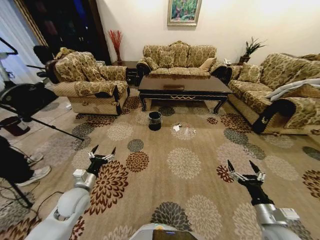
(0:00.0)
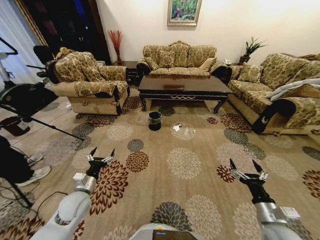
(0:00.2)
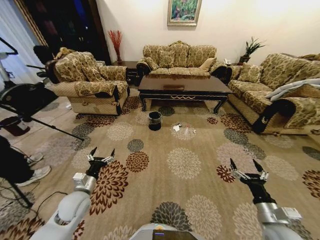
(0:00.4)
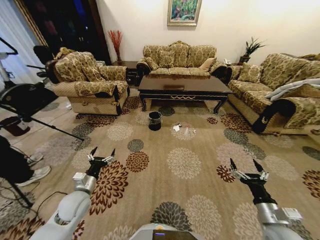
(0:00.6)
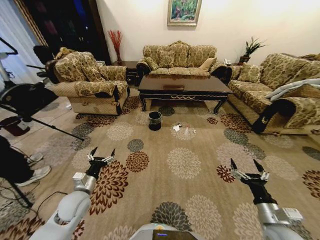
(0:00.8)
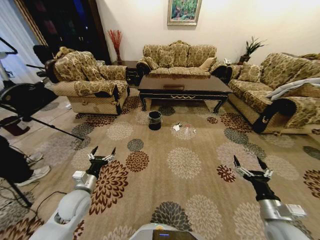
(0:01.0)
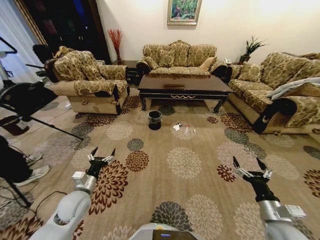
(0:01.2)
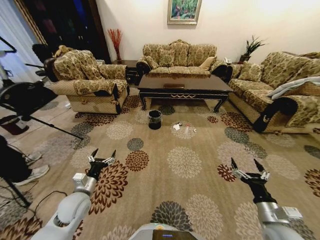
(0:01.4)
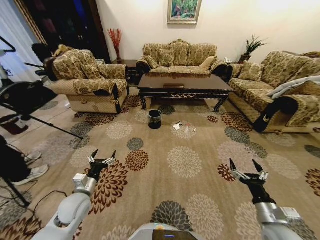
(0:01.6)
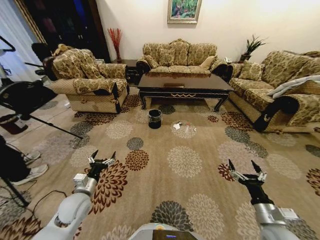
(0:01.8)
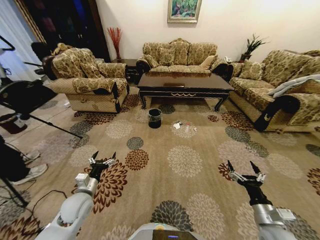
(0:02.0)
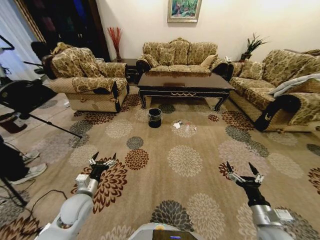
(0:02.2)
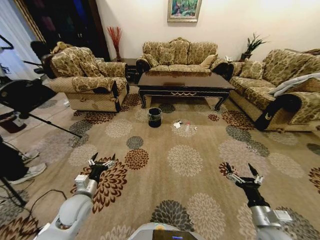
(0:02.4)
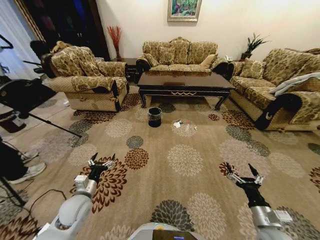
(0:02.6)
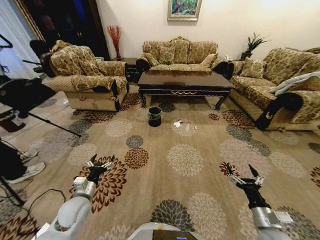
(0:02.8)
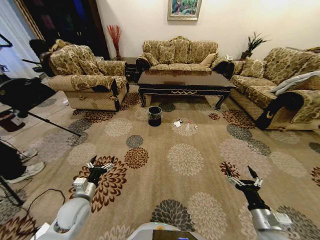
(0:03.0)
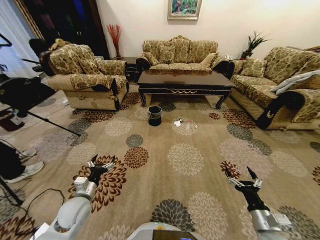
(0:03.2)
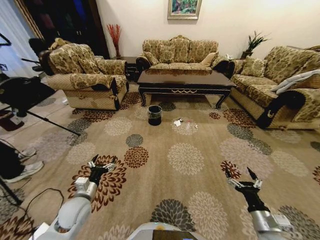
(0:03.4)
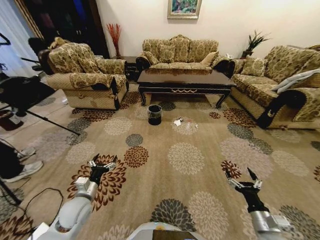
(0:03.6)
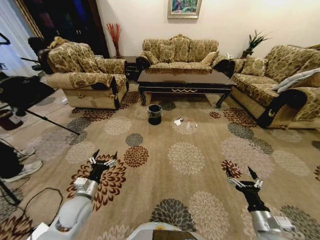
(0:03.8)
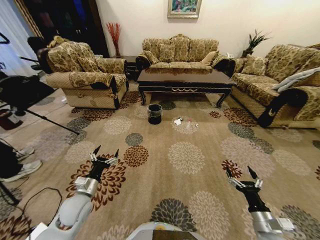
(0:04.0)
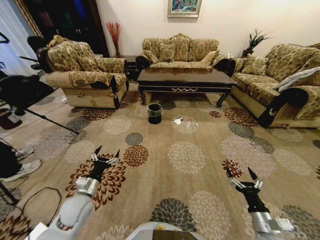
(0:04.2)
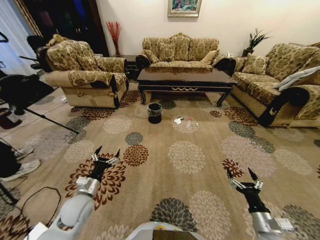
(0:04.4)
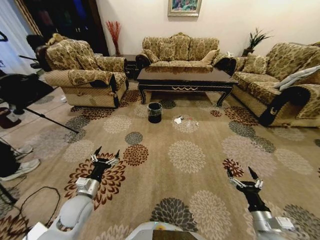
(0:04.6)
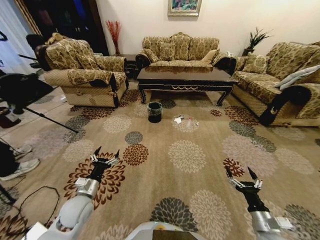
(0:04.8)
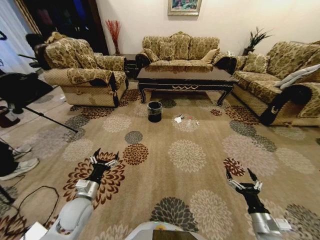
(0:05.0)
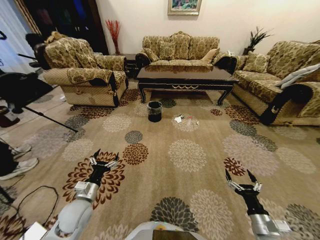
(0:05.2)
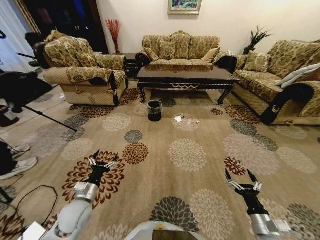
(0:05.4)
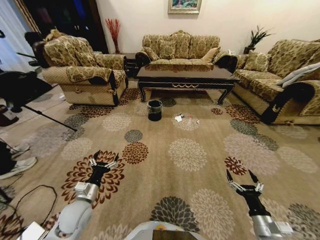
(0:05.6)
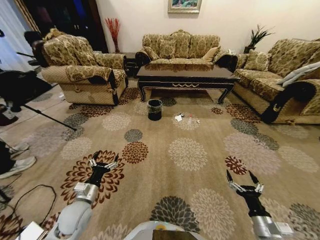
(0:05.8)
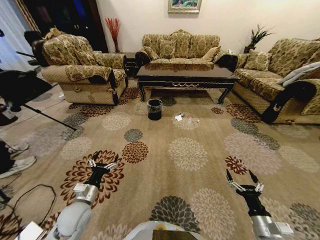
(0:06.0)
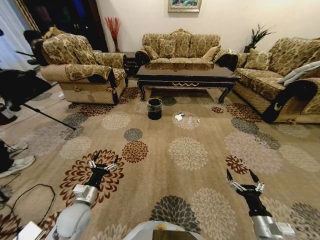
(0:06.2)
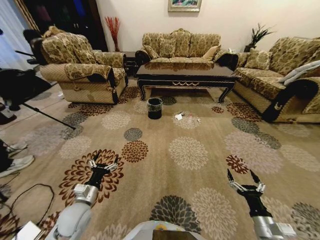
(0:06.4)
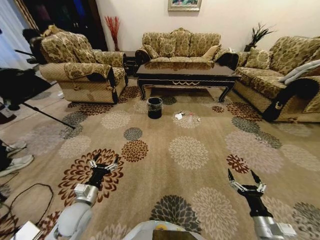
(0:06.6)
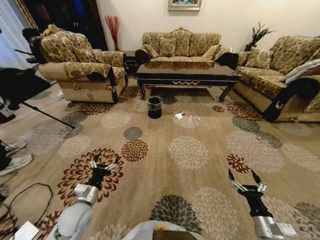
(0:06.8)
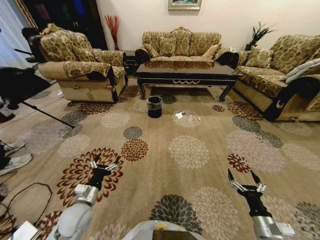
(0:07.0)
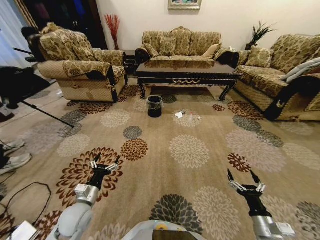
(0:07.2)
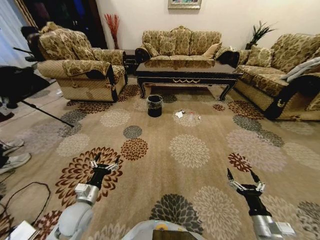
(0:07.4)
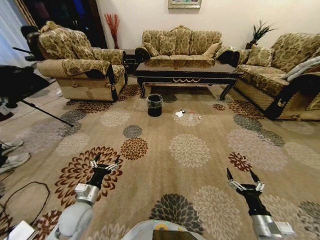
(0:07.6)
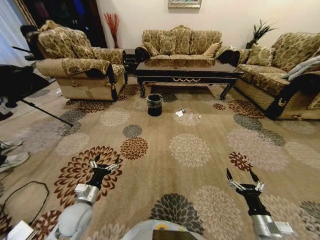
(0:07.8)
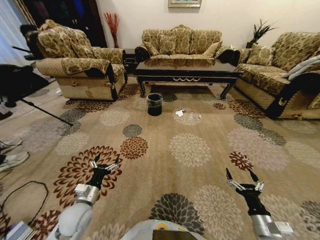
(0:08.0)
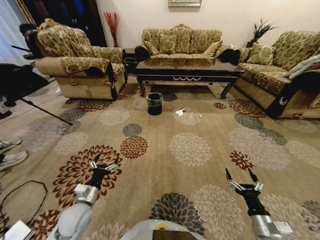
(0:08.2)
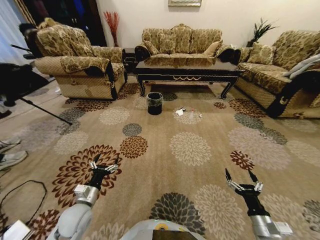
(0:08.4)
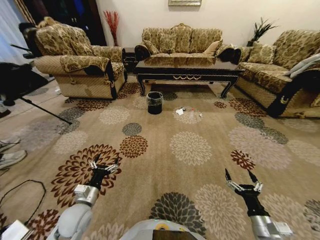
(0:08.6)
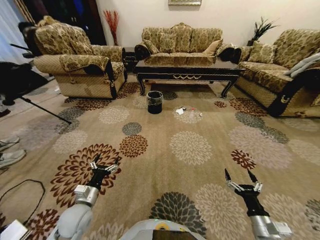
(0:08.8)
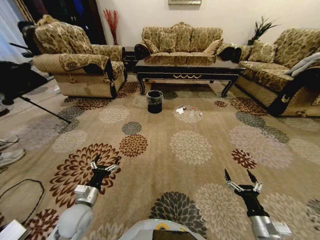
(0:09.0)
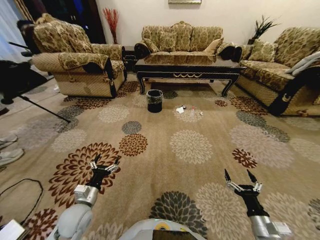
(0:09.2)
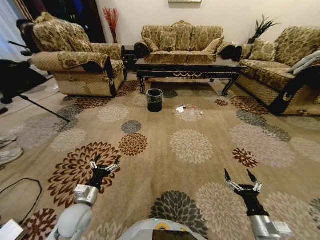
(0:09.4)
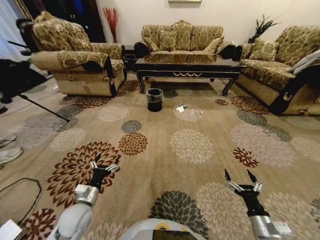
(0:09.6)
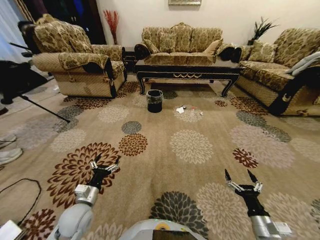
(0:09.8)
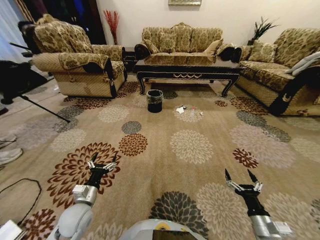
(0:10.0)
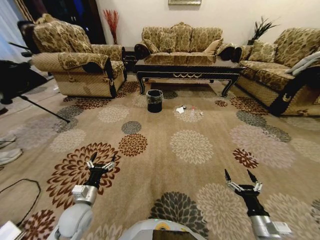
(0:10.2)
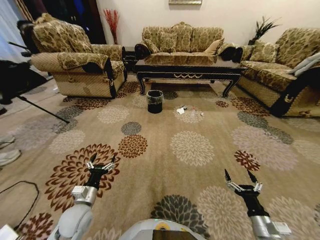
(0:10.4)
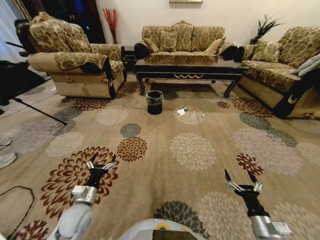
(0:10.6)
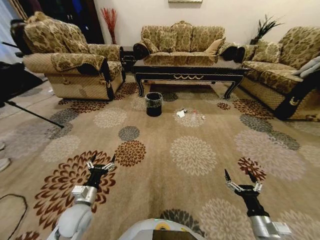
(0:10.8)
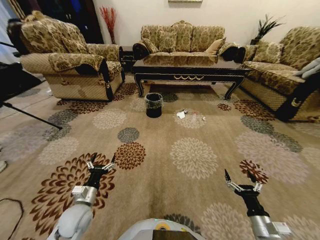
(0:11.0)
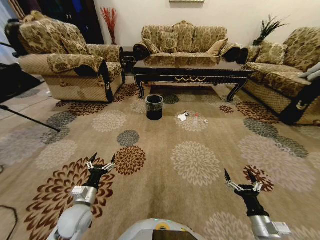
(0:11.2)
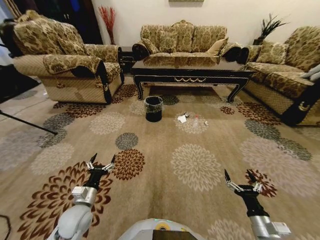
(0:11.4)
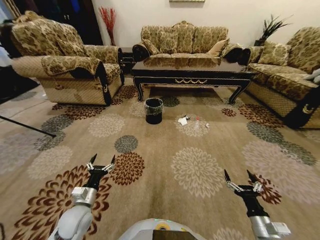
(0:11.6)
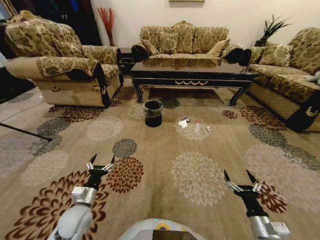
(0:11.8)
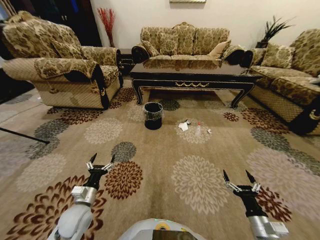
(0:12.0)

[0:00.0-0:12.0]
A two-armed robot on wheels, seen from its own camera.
Task of the whole recording: Move to the front of the table and pick up the trash from the floor, then place it into the trash bin.
0:09.0 to 0:10.4: Neither gripper changes place.

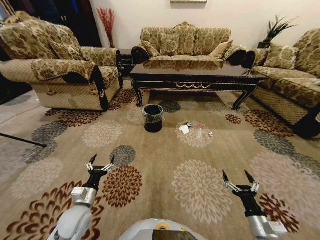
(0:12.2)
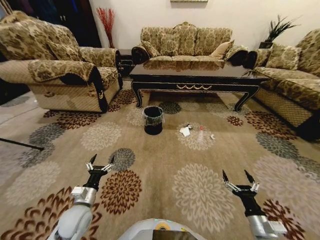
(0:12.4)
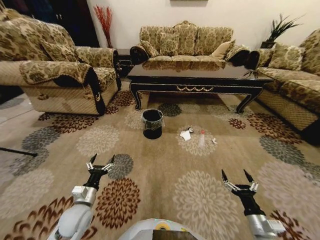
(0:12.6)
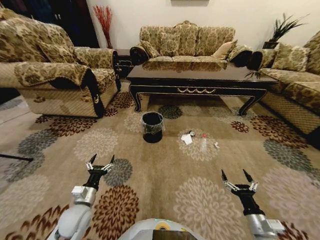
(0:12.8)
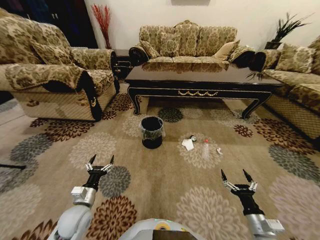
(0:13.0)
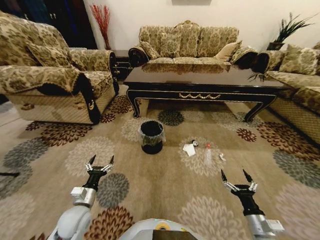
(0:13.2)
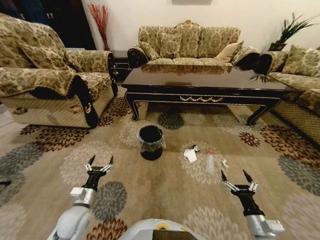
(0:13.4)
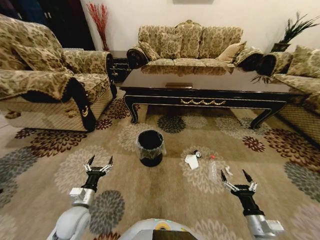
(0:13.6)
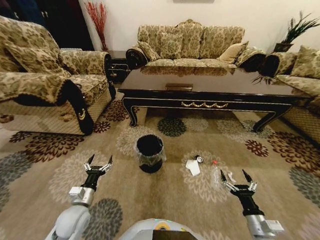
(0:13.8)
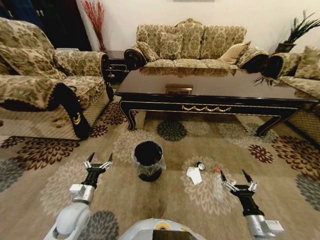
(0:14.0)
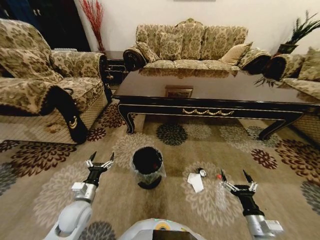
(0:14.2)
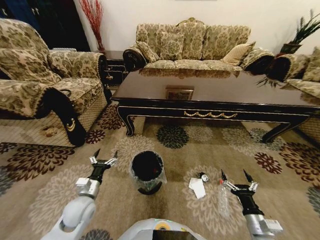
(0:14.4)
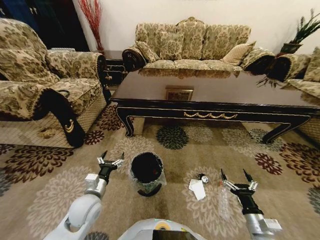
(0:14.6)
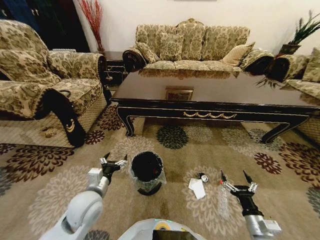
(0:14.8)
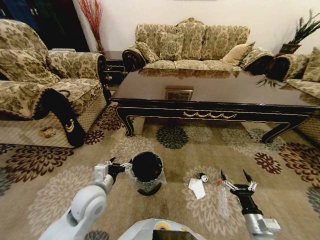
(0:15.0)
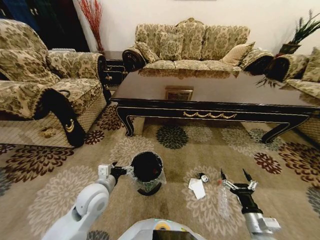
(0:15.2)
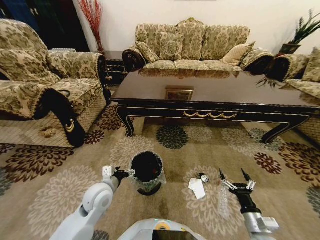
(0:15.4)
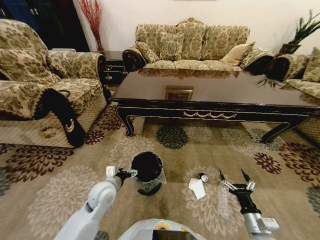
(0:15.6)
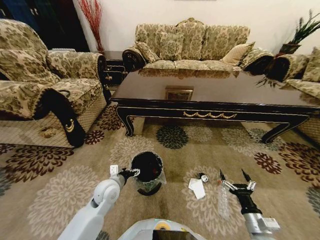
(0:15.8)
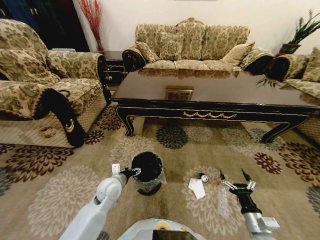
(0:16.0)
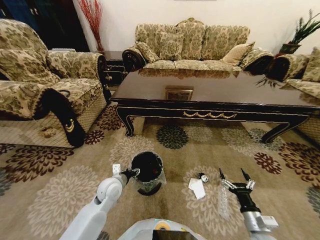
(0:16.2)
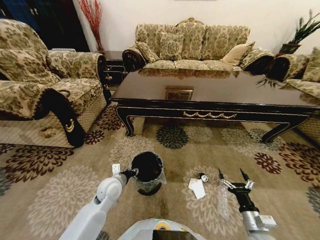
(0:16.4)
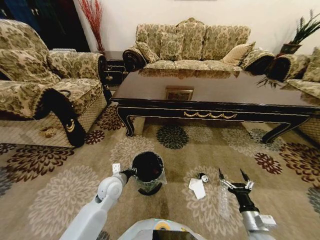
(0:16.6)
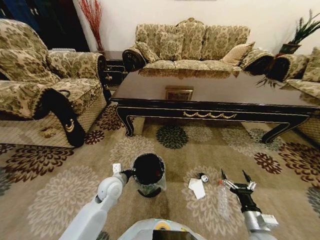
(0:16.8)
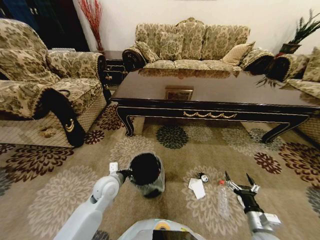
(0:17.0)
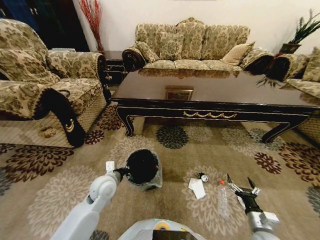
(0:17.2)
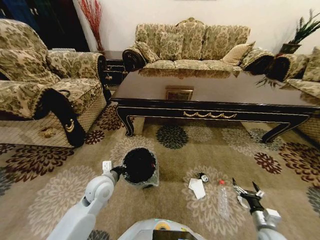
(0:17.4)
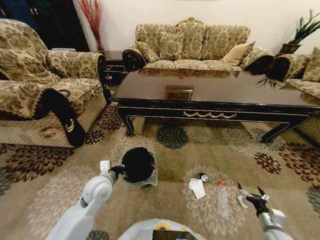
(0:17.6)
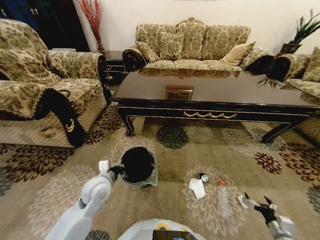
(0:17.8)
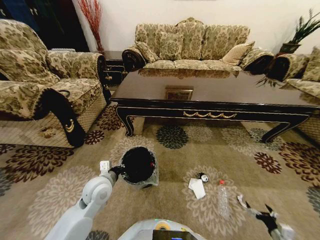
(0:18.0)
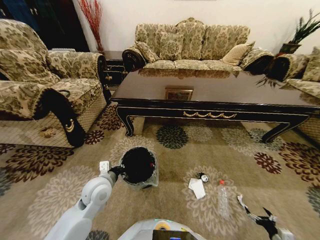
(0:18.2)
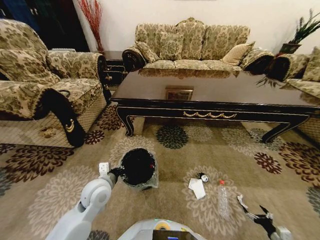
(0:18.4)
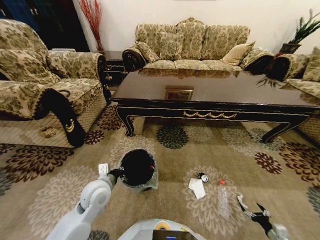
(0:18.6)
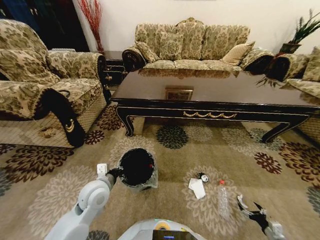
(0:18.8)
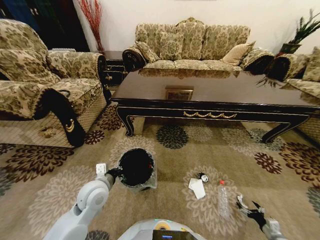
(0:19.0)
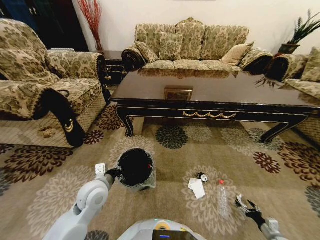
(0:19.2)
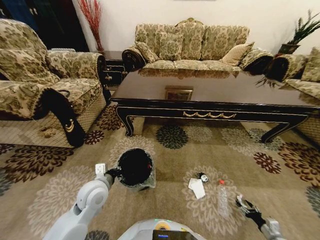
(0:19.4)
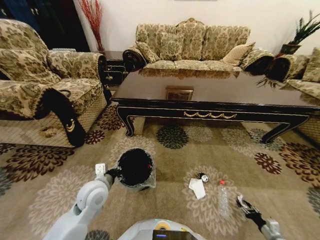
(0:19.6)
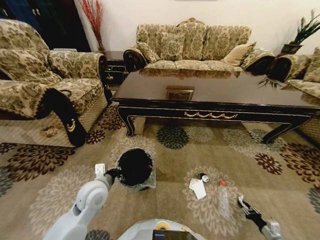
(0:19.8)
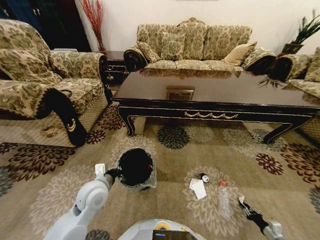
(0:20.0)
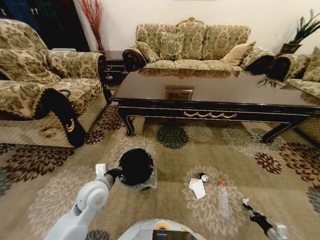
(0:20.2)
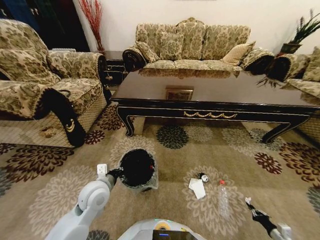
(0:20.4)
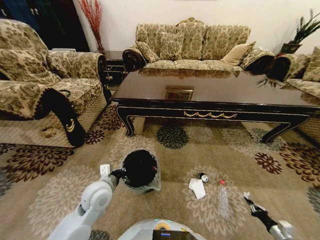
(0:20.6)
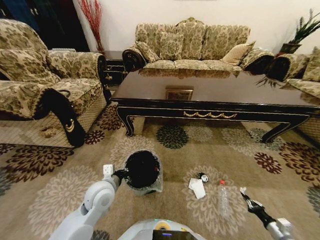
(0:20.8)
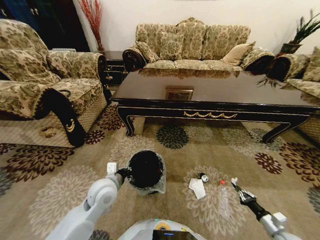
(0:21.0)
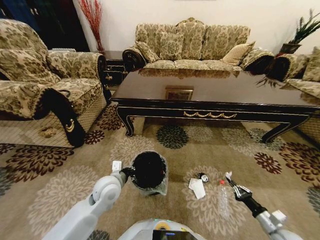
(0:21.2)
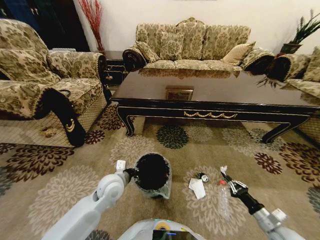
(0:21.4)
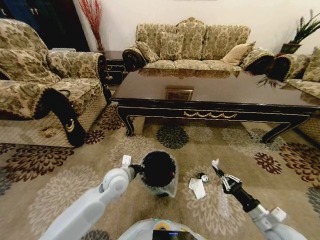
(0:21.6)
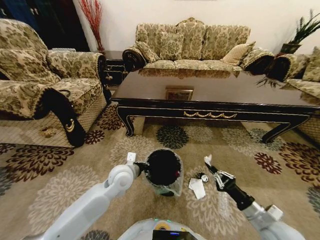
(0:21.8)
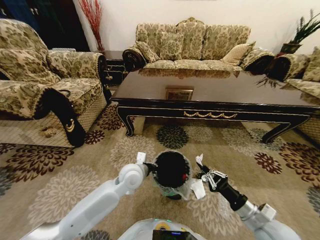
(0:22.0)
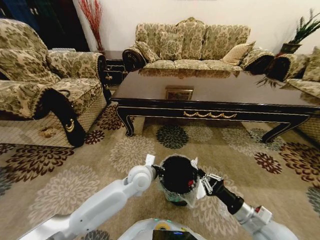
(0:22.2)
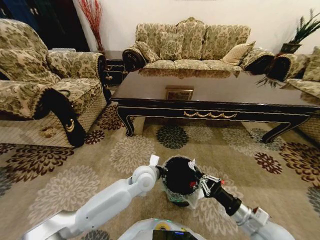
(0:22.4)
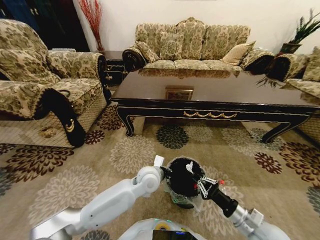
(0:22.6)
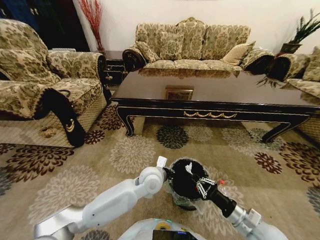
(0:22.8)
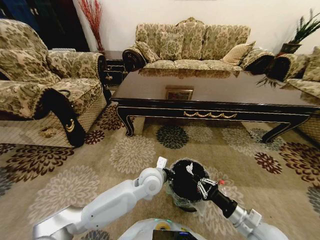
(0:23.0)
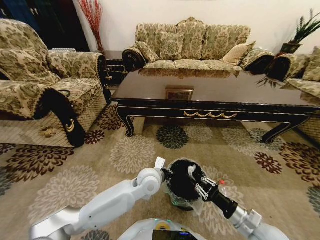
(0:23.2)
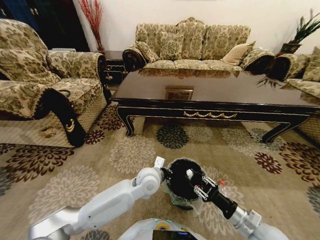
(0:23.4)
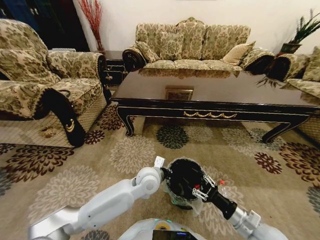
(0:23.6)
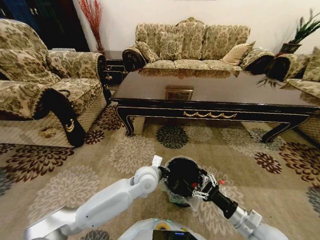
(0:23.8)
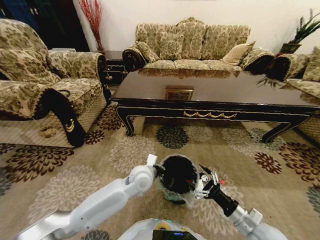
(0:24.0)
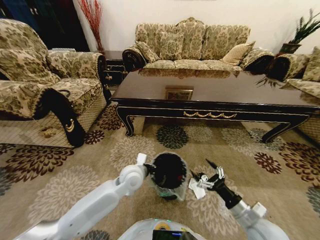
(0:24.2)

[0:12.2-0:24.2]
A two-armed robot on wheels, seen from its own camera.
Task of the whole recording: Move to the front of the table and pick up the trash from the floor, then place it into the trash bin.
0:13.8 to 0:15.2: The left gripper goes approximately 10 cm upward and to the right.
0:15.2 to 0:16.6: The left gripper heads downward and forward, covering some 10 cm, and closes up.
0:16.6 to 0:18.2: The right gripper travels to the right and downward by some 30 cm. Meanwhile the left gripper shifts roughly 5 cm upward.
0:18.2 to 0:19.8: The right gripper changes place by some 5 cm, and closes up.
0:19.8 to 0:21.2: The right gripper heads upward and to the left, covering some 20 cm, and closes up.
0:21.2 to 0:22.6: The left gripper moves to the right, roughly 15 cm, while the right gripper moves to the left and upward, approximately 20 cm.
0:22.6 to 0:24.2: The left gripper goes approximately 5 cm to the left, while the right gripper opens.
